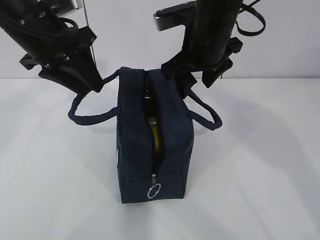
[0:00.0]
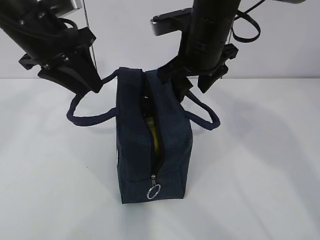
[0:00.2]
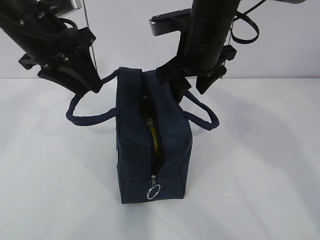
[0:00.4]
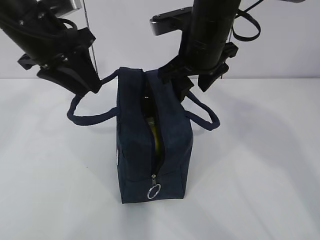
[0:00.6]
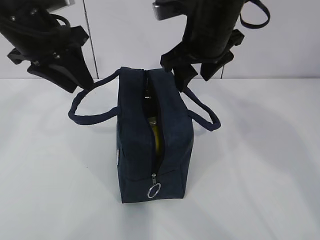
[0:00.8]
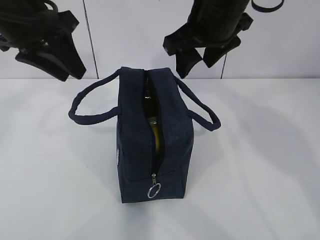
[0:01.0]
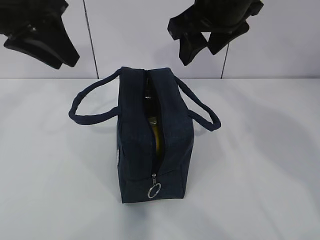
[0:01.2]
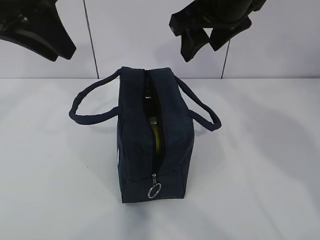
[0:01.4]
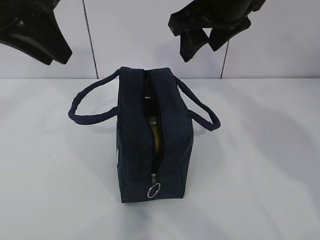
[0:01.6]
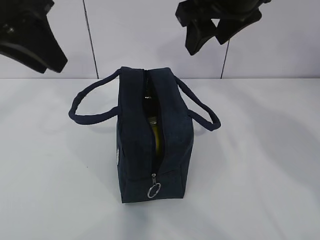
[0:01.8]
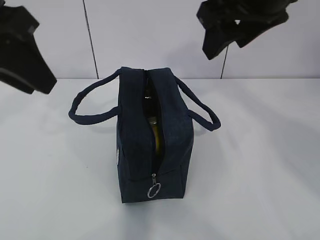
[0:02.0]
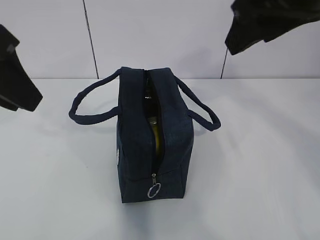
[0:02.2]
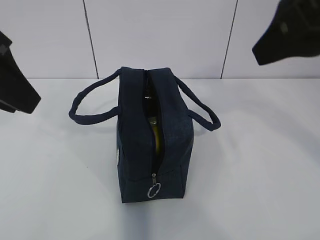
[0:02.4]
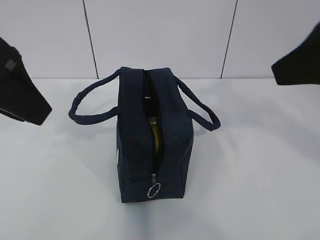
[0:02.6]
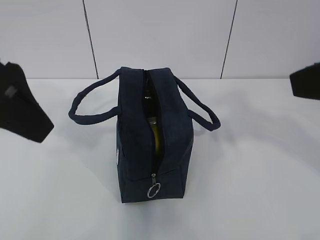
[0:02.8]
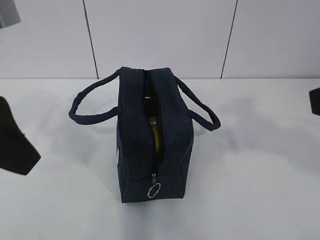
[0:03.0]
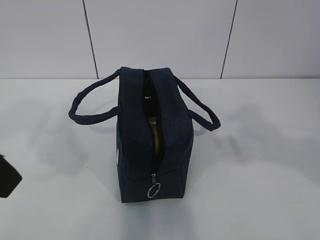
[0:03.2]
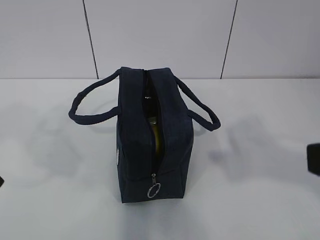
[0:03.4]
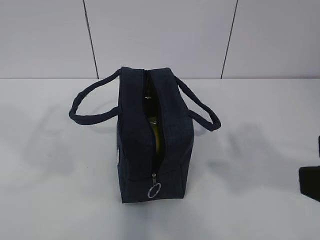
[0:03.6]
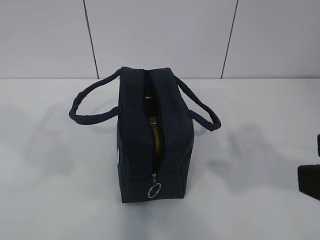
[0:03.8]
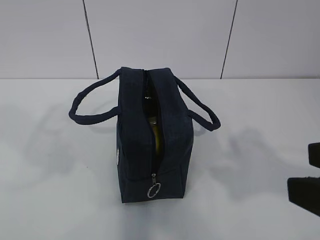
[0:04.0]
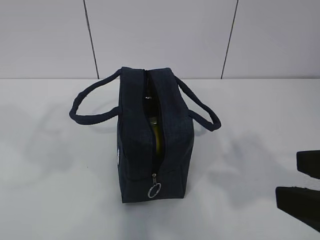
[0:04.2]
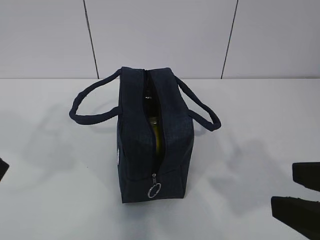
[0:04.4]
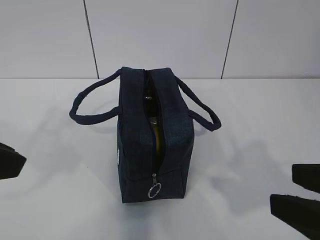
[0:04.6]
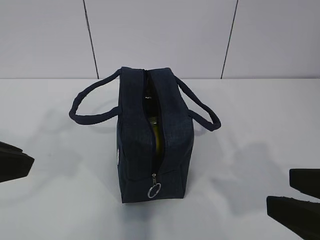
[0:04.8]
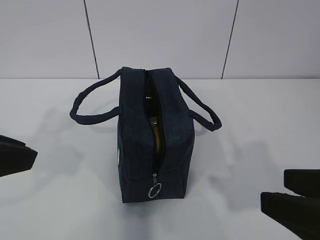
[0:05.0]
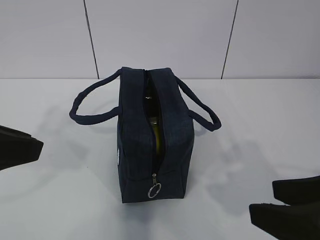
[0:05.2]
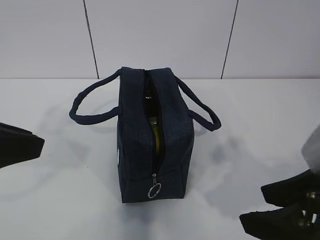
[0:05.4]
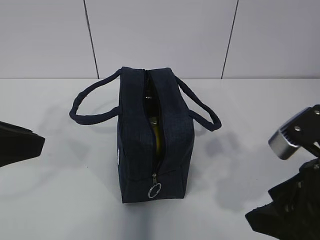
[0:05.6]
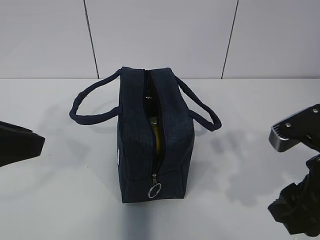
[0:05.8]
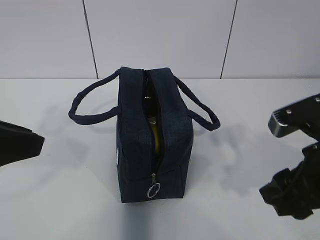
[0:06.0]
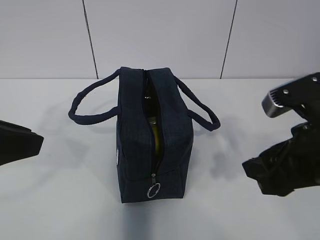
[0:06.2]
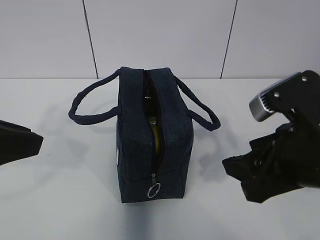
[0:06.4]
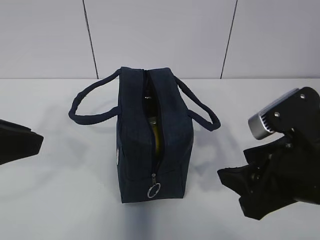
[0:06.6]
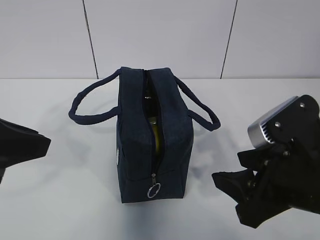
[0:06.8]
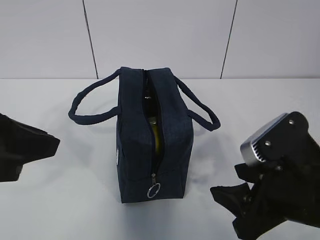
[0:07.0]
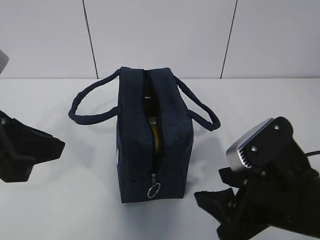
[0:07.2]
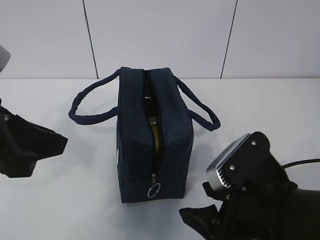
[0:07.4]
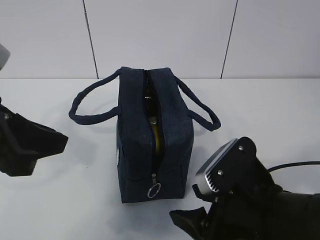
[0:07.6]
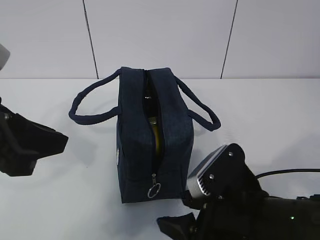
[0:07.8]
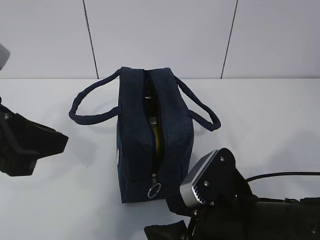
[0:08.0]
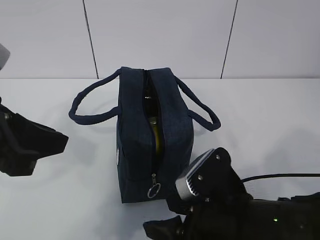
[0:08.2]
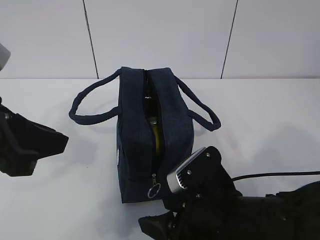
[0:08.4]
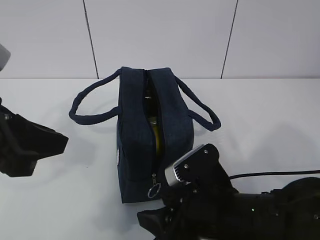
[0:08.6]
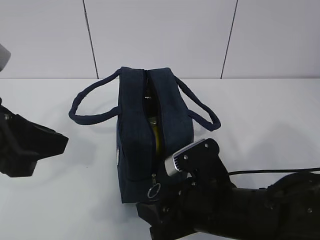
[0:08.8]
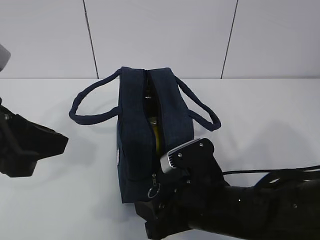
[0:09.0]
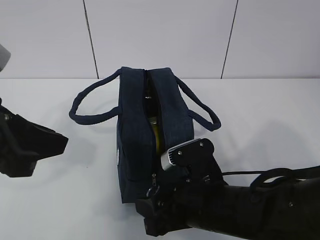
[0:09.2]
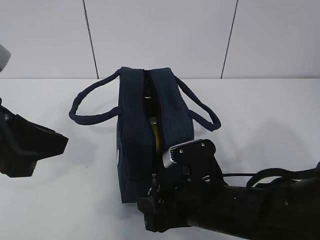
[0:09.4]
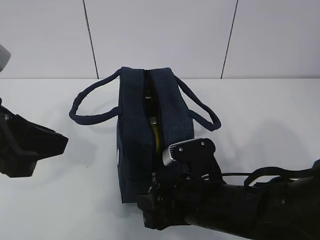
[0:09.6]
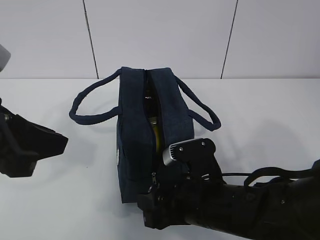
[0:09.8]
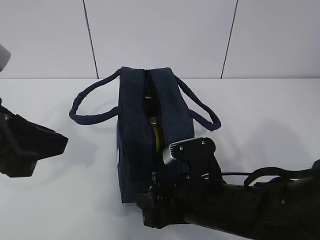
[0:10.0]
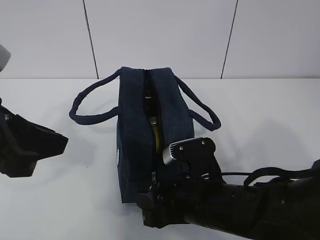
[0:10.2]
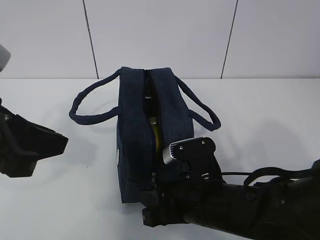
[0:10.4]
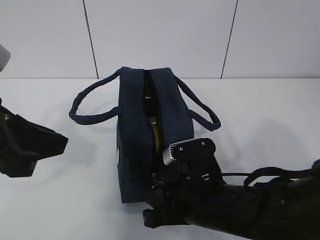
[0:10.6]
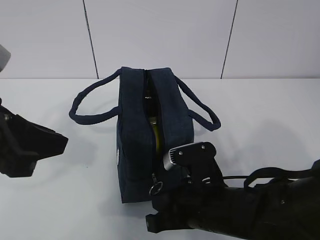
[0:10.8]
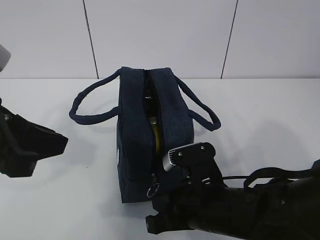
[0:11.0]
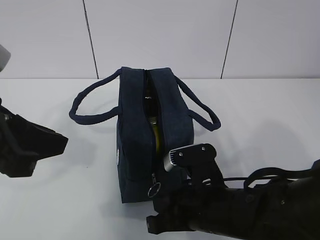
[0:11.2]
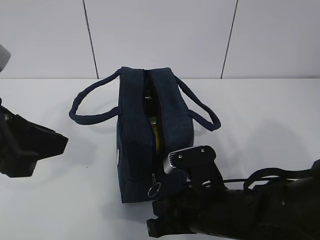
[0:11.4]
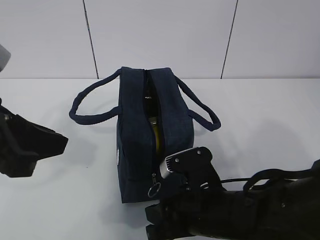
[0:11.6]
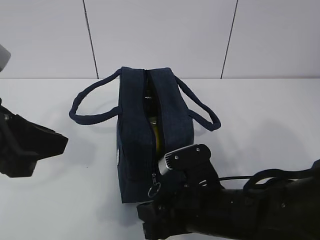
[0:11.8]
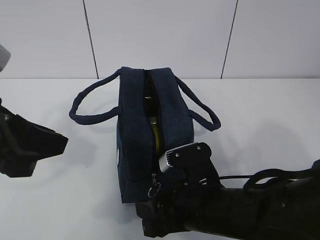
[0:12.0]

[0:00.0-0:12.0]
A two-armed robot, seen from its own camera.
0:00.0 to 0:01.6: The left gripper shifts some 10 cm upward and backward, while the right gripper goes some 10 cm upward.
0:01.6 to 0:03.0: The right gripper is displaced backward and to the right by some 25 cm. The left gripper travels backward by roughly 10 cm.
0:03.0 to 0:04.4: The right gripper moves downward, roughly 10 cm; the left gripper changes place by about 5 cm.
0:04.4 to 0:06.0: The right gripper travels forward by some 10 cm.
0:06.0 to 0:07.6: The right gripper heads to the left and downward, covering about 10 cm.
0:07.6 to 0:09.0: The right gripper changes place by roughly 5 cm.
0:09.0 to 0:10.4: The grippers move only a little.
0:10.4 to 0:12.0: The right gripper closes, then reopens.

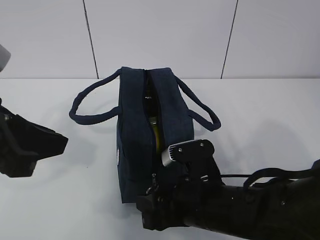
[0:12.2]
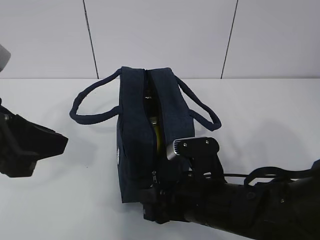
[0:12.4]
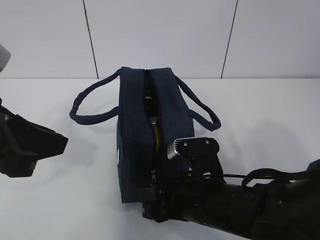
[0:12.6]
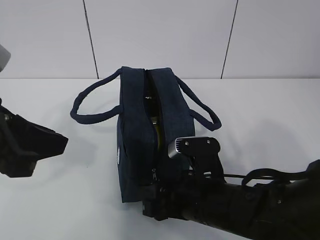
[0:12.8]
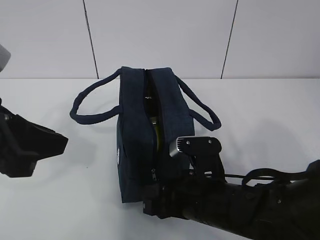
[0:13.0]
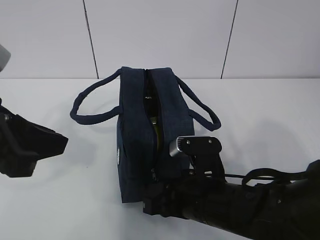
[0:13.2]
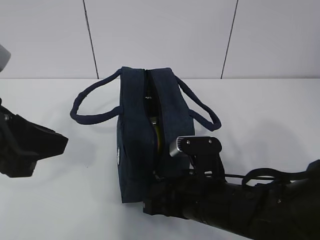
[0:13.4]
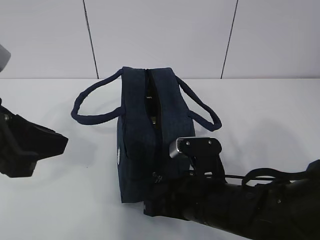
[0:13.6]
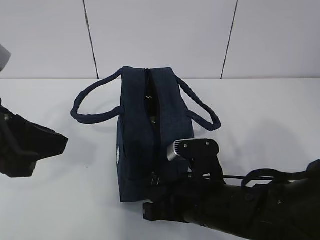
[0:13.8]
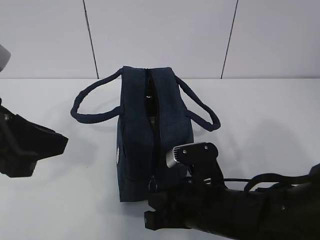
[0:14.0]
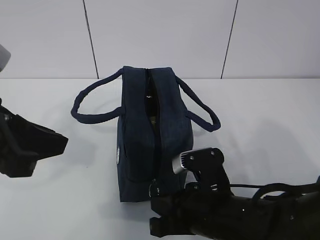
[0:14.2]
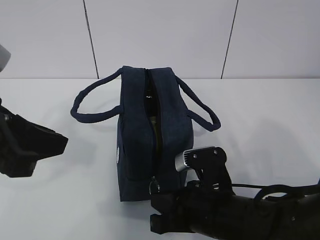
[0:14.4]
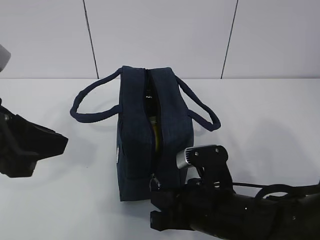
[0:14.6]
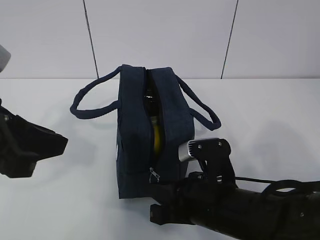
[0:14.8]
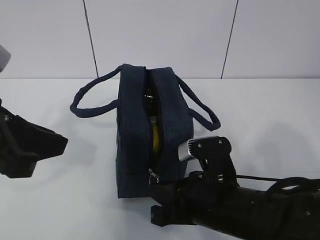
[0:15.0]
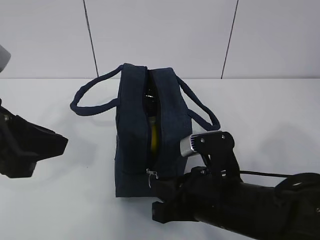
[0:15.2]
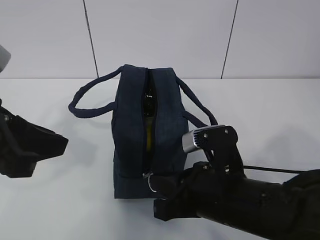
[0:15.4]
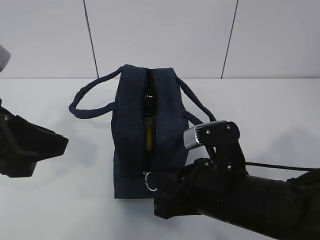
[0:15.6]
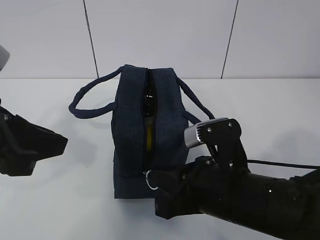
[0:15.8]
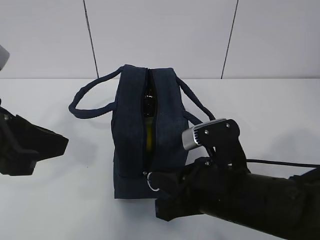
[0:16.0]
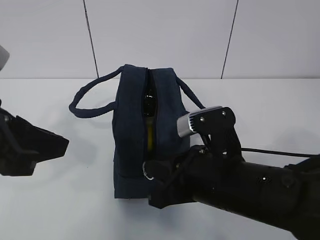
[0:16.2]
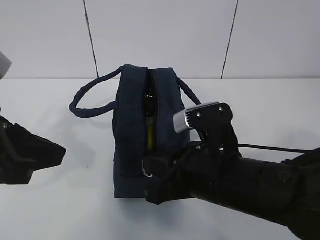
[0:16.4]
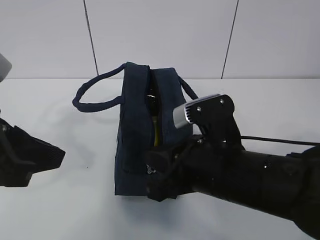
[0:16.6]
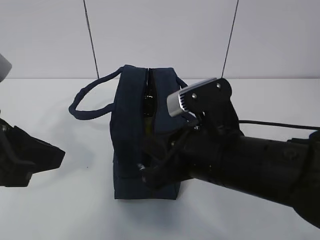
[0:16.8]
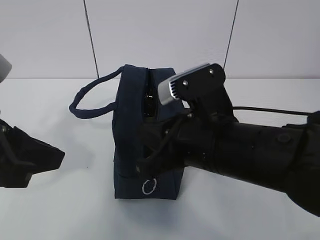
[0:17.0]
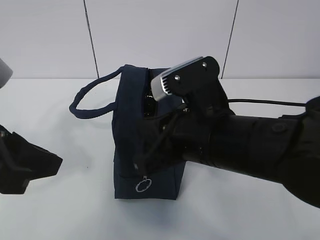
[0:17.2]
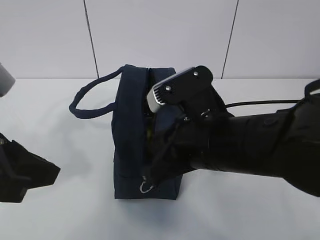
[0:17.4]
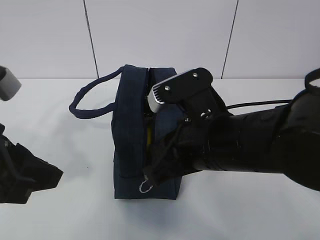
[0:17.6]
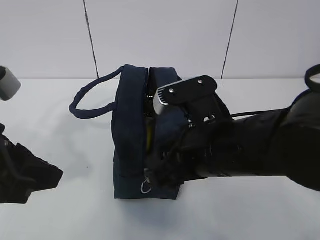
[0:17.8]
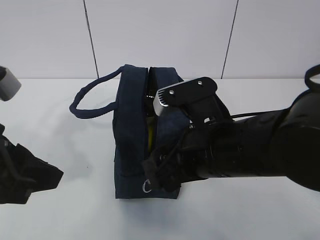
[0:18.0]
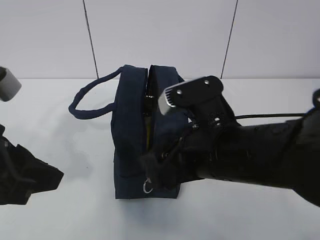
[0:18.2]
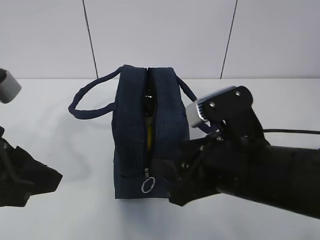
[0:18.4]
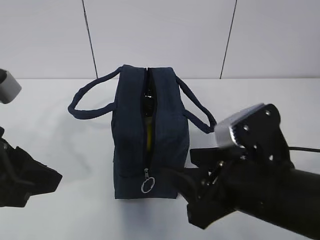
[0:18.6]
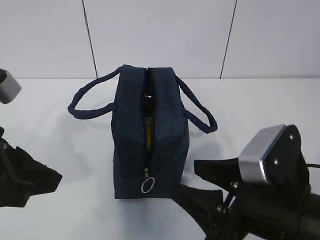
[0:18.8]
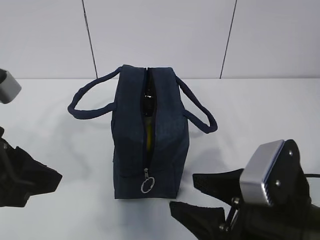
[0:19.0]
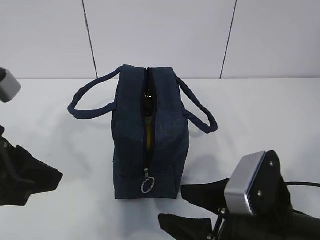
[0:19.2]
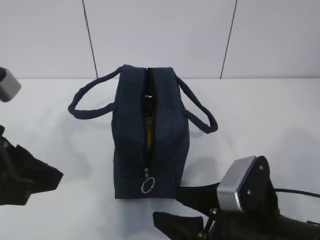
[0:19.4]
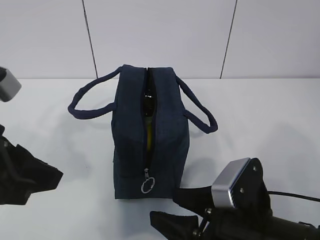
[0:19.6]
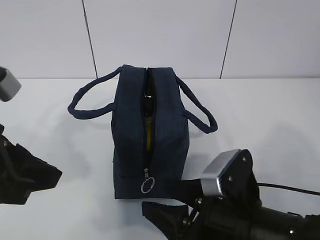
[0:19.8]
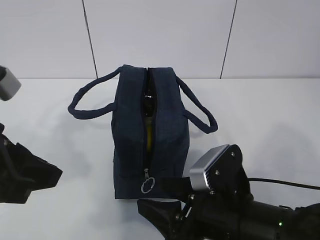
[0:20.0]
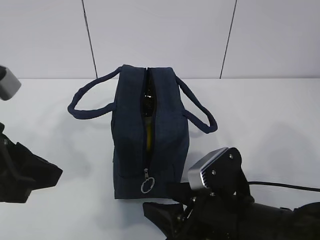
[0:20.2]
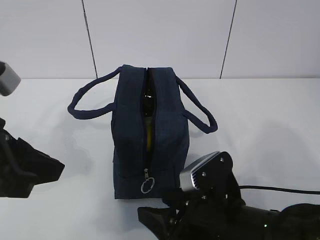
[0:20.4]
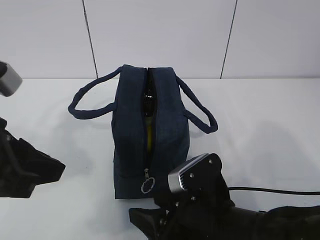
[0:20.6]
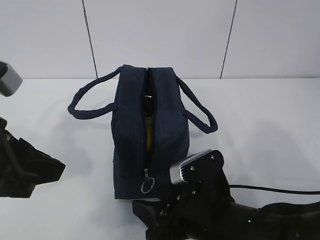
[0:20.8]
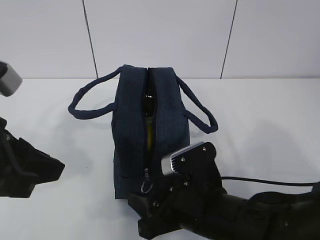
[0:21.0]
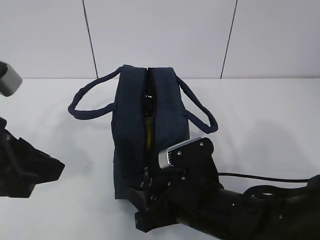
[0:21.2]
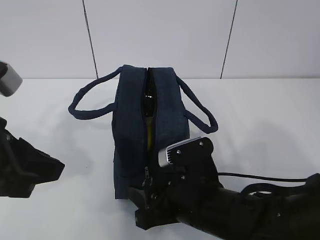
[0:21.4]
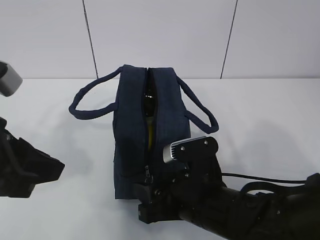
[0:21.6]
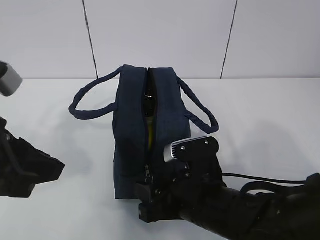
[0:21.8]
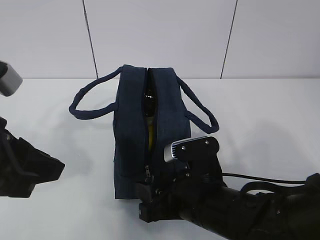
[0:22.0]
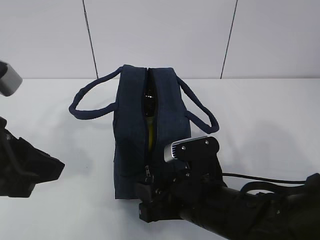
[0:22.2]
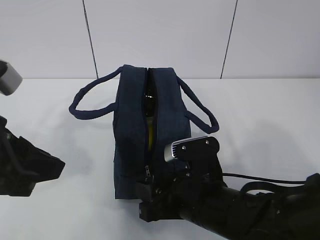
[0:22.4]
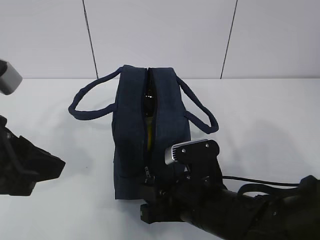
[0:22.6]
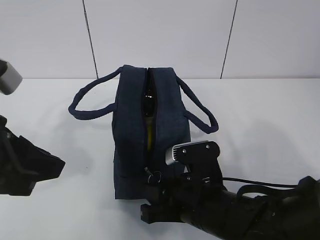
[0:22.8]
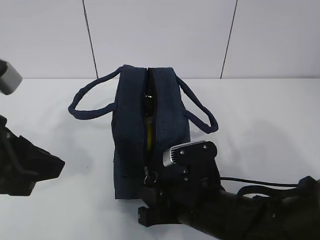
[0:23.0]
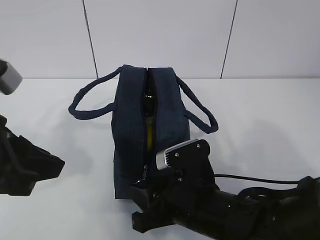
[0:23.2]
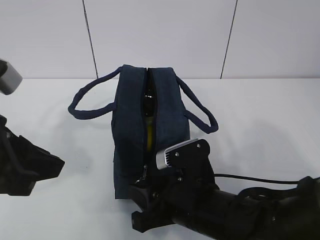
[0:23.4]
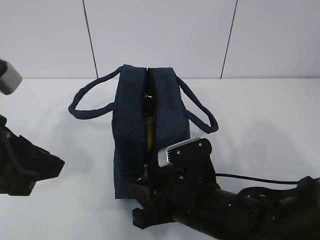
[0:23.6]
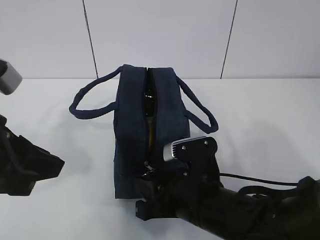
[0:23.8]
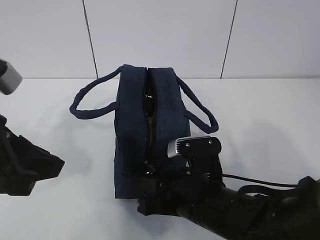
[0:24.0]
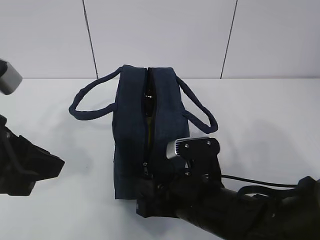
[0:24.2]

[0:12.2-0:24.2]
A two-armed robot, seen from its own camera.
0:12.2 to 0:13.8: The right gripper closes its fingers.
0:13.8 to 0:15.2: The grippers stay close to where they were, moving slightly.
0:15.2 to 0:16.6: The right gripper goes approximately 5 cm upward.
0:16.6 to 0:18.2: The right gripper opens its fingers.
0:18.2 to 0:19.8: The right gripper heads downward and backward, covering about 10 cm.
0:19.8 to 0:21.2: The right gripper ends up some 5 cm from where it was.
0:21.2 to 0:24.2: The grippers stay close to where they were, moving slightly.
